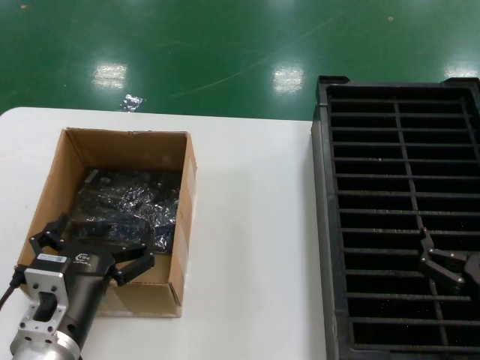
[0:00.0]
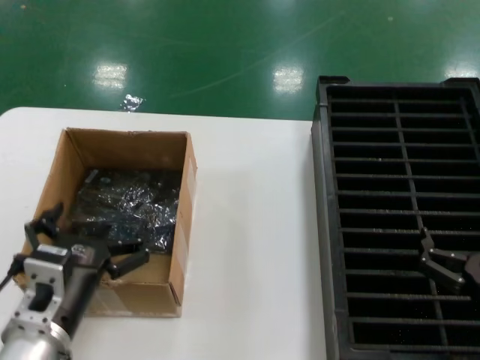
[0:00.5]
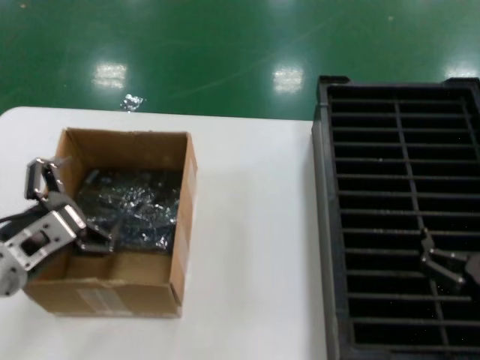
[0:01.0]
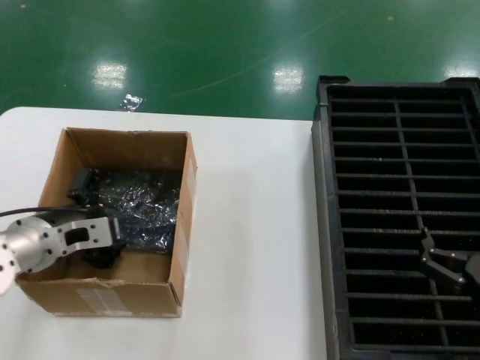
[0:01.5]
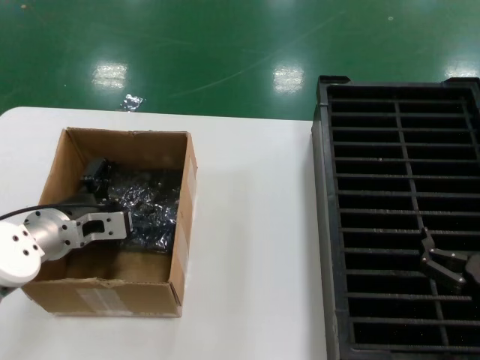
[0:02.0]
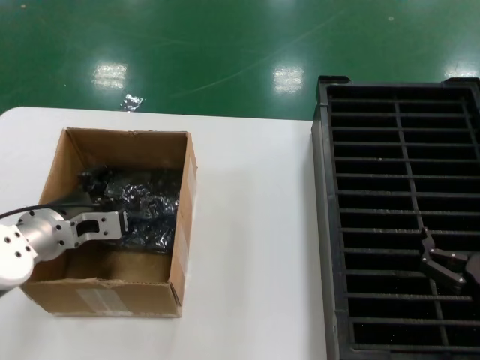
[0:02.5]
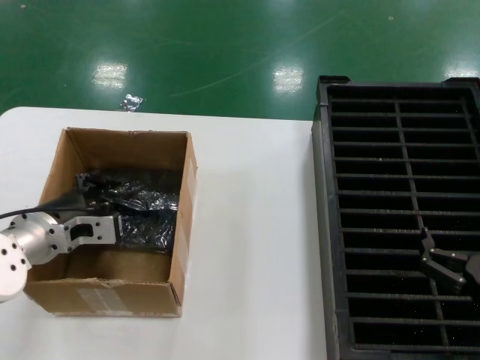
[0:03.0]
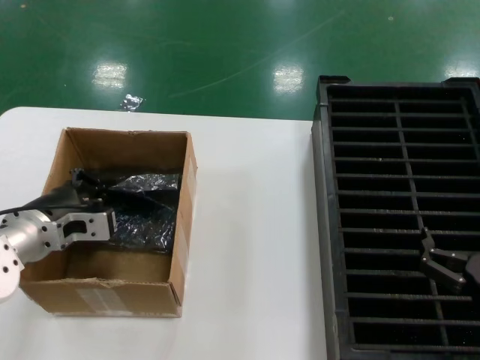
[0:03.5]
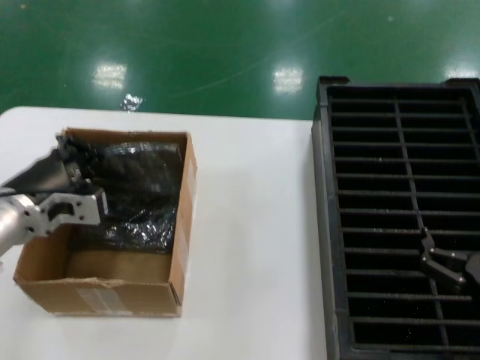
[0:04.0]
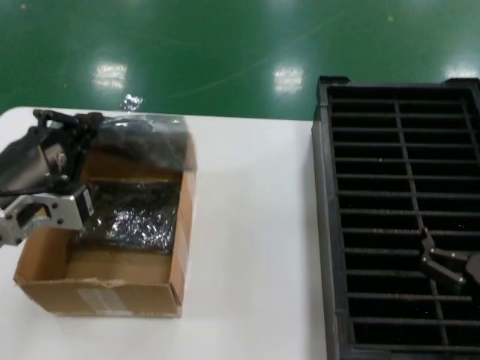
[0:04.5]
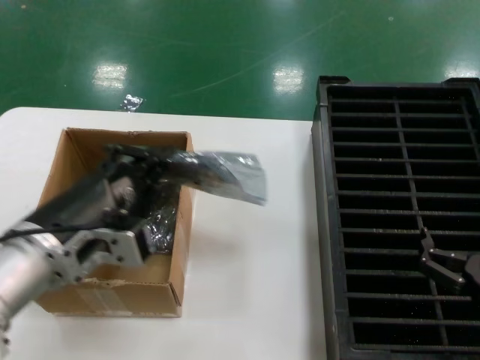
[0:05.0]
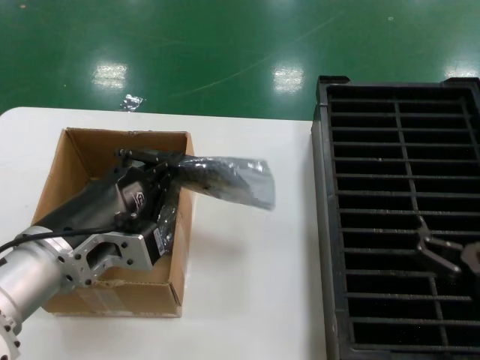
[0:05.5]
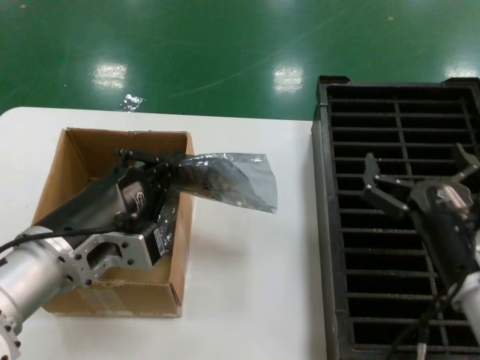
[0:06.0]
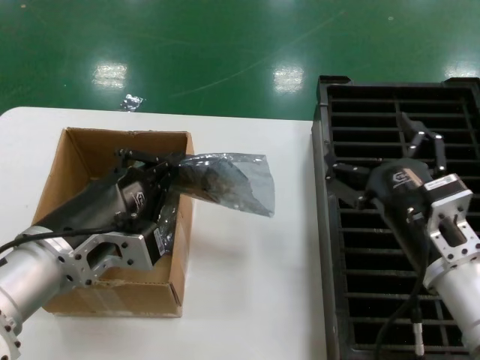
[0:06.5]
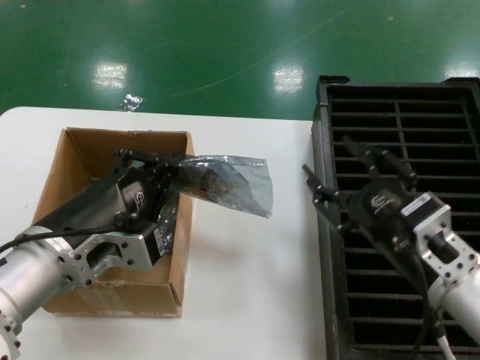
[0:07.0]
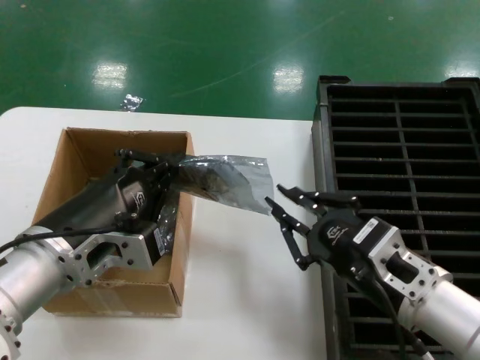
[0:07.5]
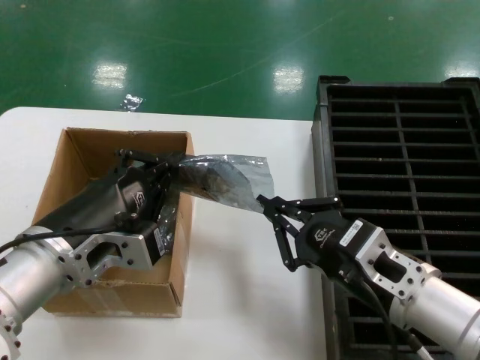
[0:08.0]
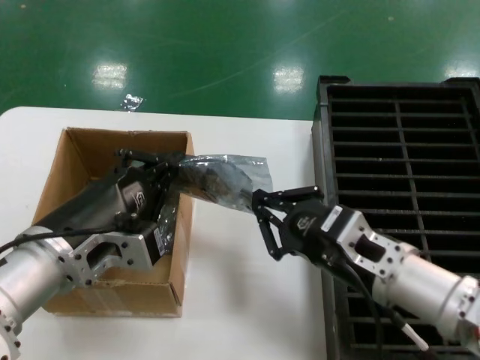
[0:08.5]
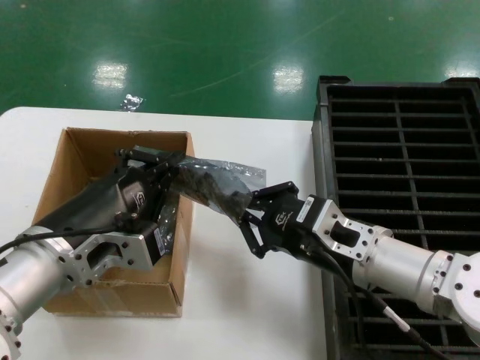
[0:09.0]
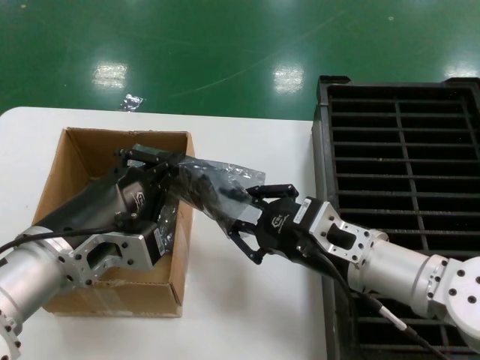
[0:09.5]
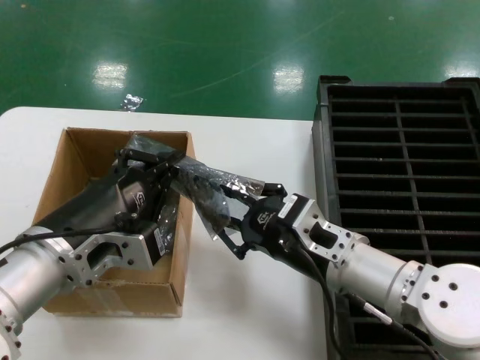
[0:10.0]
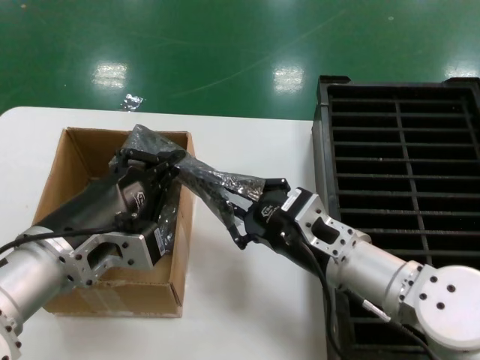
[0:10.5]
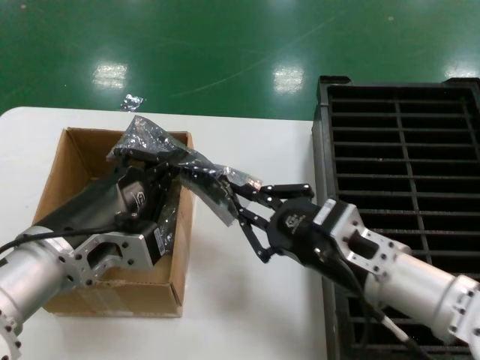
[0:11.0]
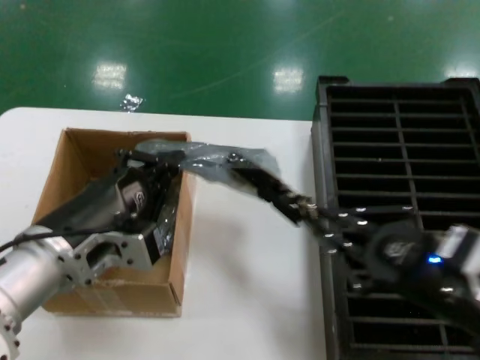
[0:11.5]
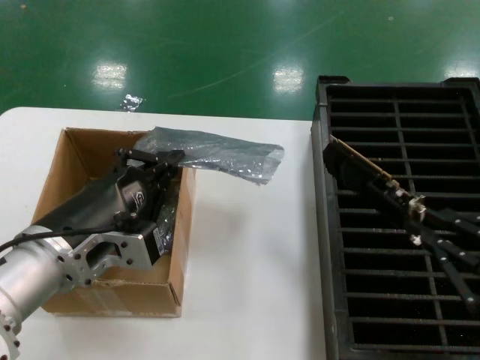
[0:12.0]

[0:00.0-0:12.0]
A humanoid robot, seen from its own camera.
Task of the whole recording: take out graphics card from box remove packaging put into black container.
Step, 0:00.0 to 0:03.5: Grasp the bag.
Step, 0:04.0 to 0:05.0: Lift the bag.
Step, 0:05.5 to 0:11.5: Take out the hard disk of the bag.
0:00.0 to 0:02.0: The left hand is displaced forward and to the left by roughly 20 cm.
0:02.0 to 0:04.0: The left hand moves backward and upward, some 10 cm.
0:04.0 to 0:06.0: The right hand goes about 5 cm to the left, while the left hand moves backward and to the right, approximately 15 cm.
0:06.0 to 0:08.0: The right hand moves about 5 cm.
0:08.0 to 0:10.0: The right hand is displaced forward and to the left by roughly 10 cm.
0:10.0 to 0:12.0: The right hand moves to the right, backward and upward, approximately 30 cm.

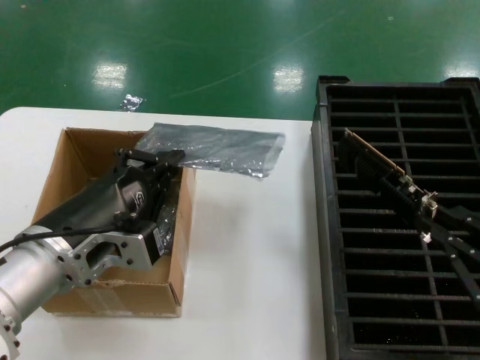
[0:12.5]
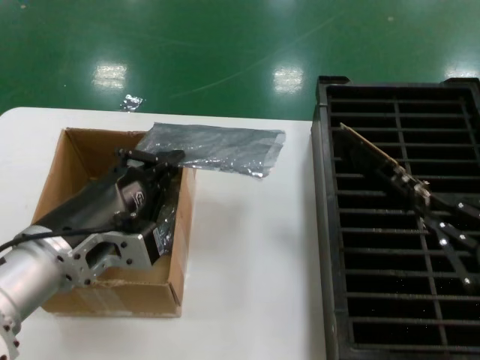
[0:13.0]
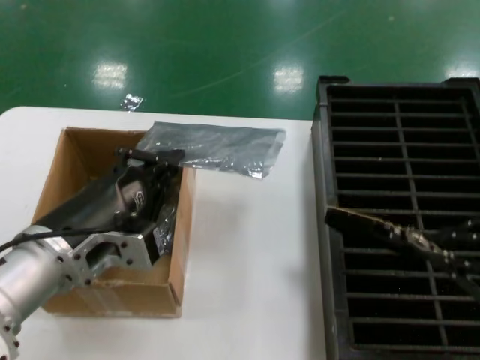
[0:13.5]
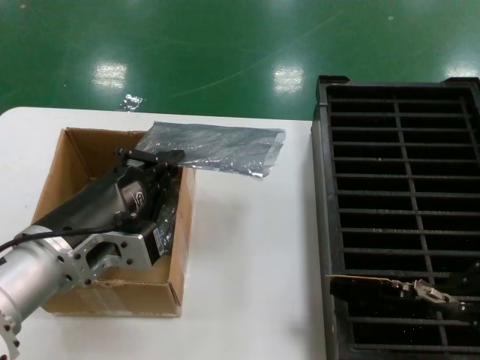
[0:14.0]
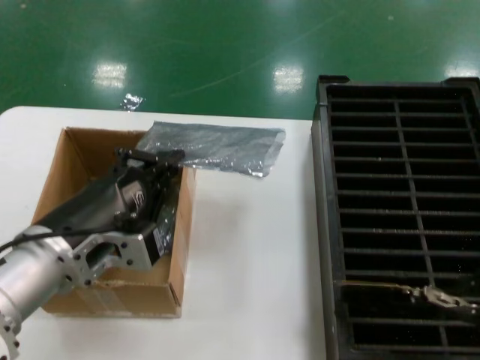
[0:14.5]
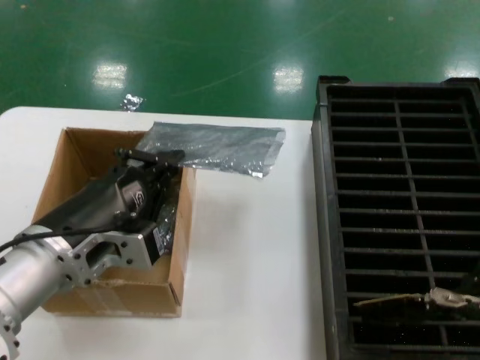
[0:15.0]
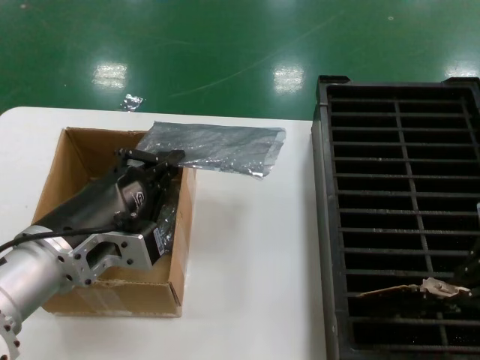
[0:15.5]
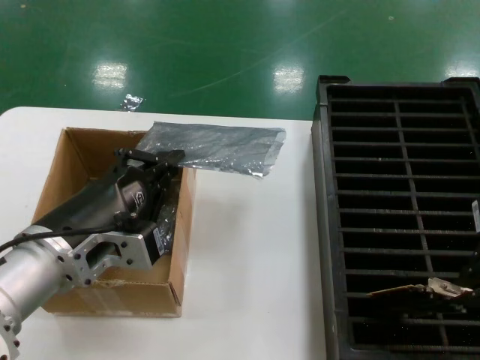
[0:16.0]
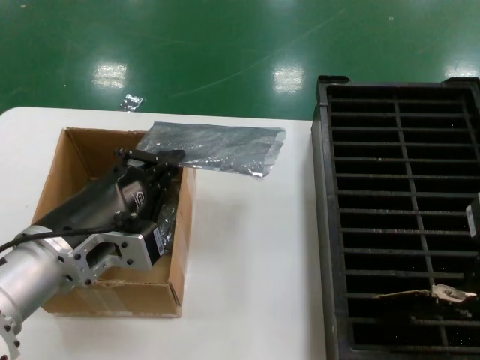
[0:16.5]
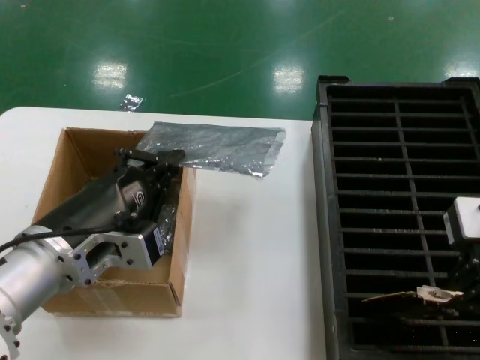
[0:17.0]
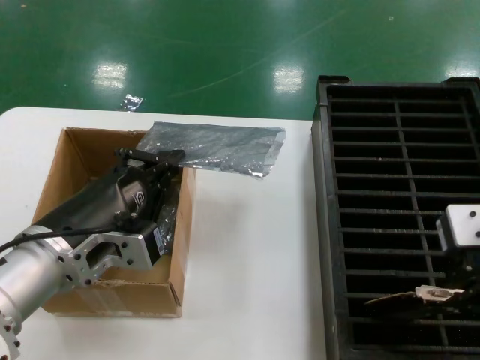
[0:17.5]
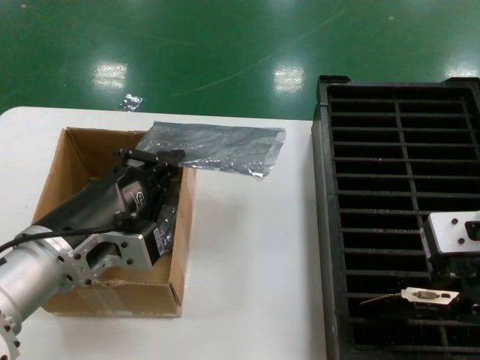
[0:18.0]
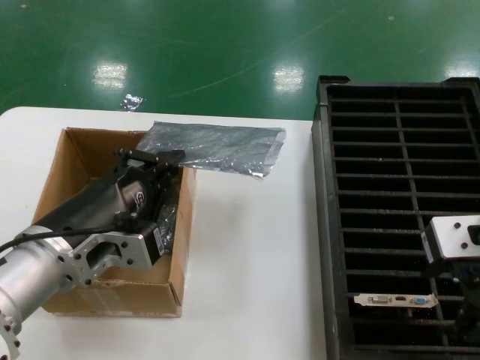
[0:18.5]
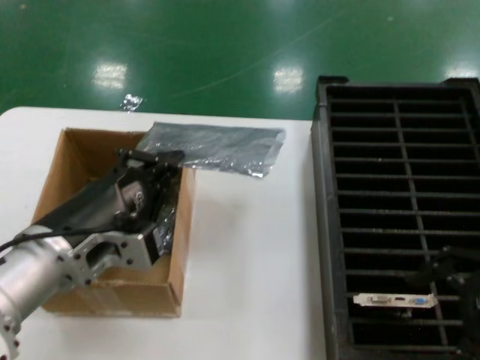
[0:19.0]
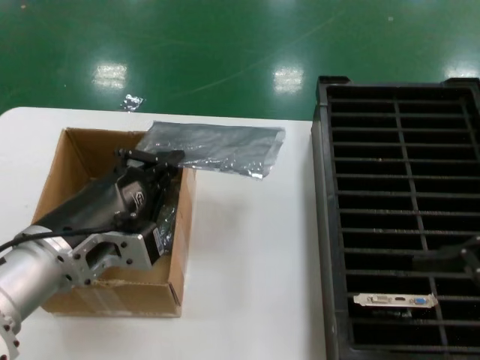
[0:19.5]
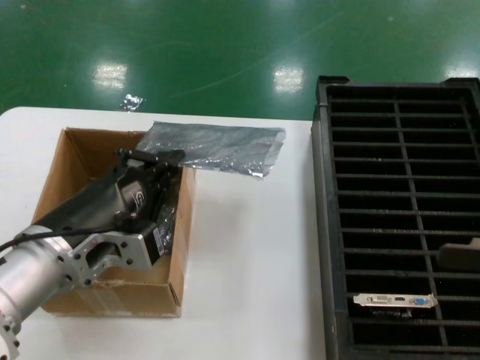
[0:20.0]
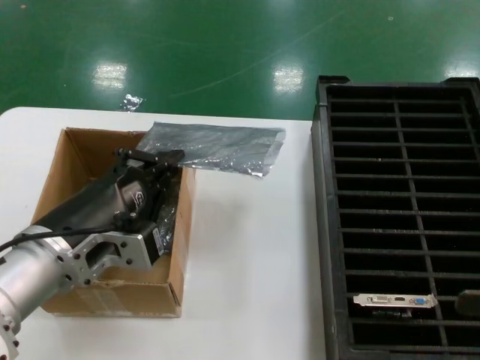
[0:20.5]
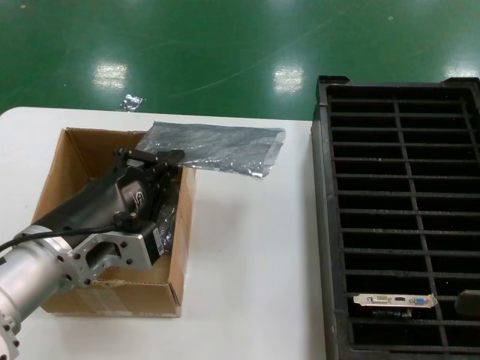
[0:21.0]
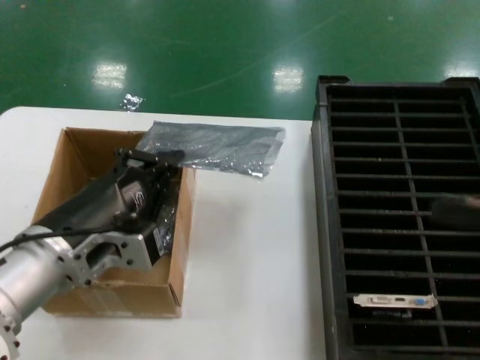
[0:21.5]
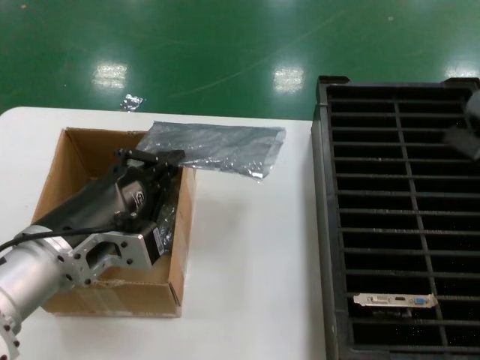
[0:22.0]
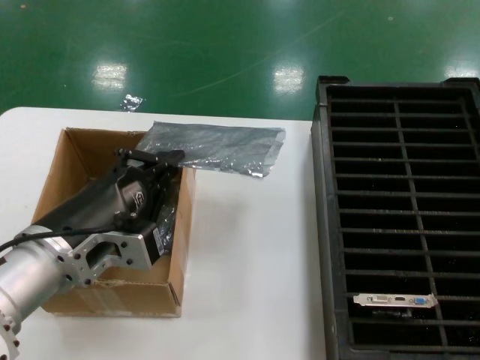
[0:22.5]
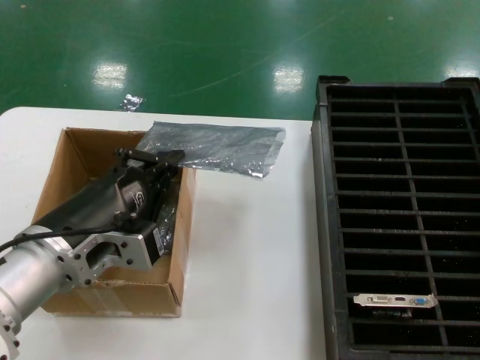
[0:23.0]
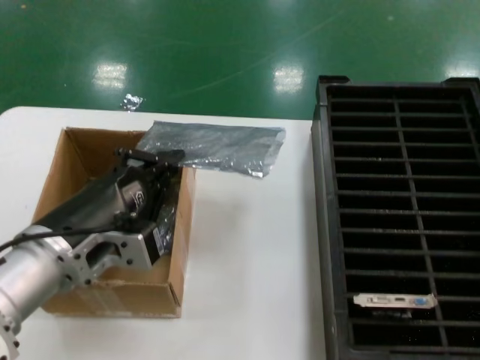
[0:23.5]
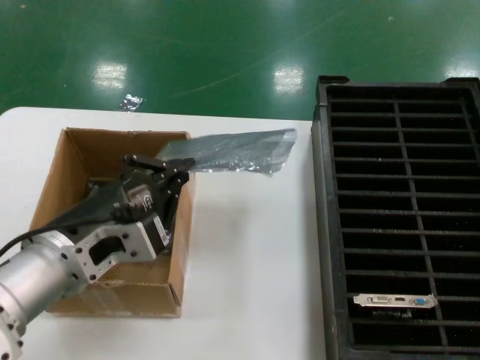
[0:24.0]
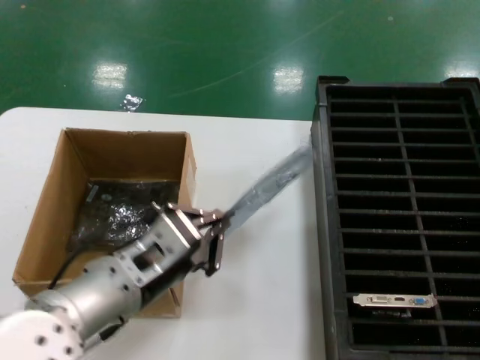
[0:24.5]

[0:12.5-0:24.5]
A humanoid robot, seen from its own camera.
Task of the whole recording: take out graphics card from box remove packaging put into black container.
Step, 0:12.5 to 0:18.5: Place the hard disk in the hard disk enclosure.
0:12.5 to 0:14.5: The right hand heads upward, covering approximately 15 cm.
0:14.5 to 0:16.5: The right hand is displaced forward by approximately 10 cm.
0:16.5 to 0:18.5: The hands stay close to where they were, moving slightly.
0:18.5 to 0:20.5: The right hand travels to the right, backward and downward by about 25 cm.
0:22.5 to 0:24.5: The left hand changes place by approximately 5 cm.

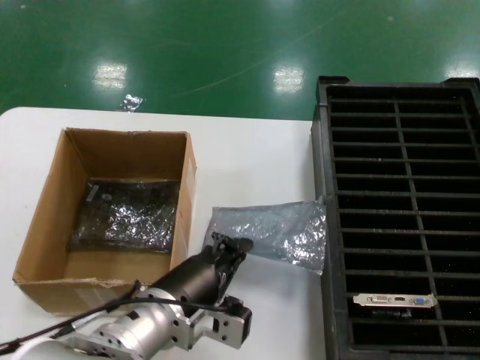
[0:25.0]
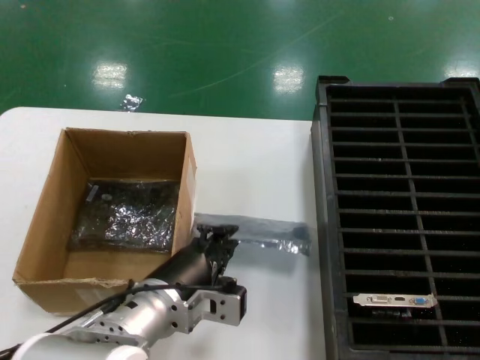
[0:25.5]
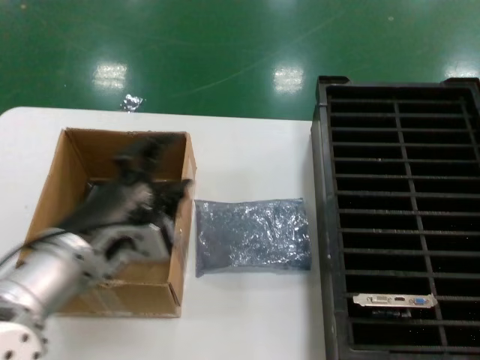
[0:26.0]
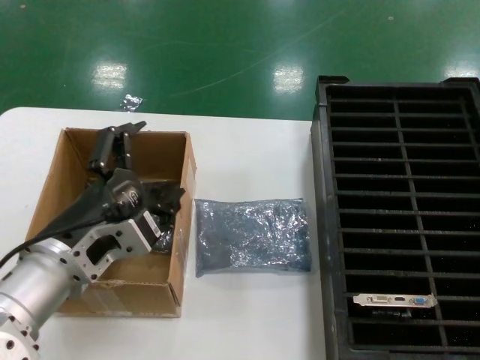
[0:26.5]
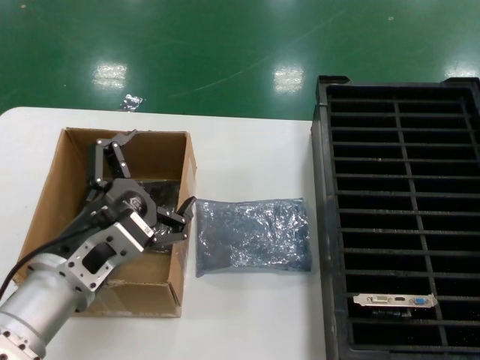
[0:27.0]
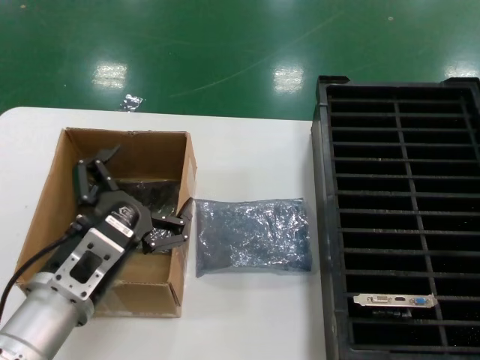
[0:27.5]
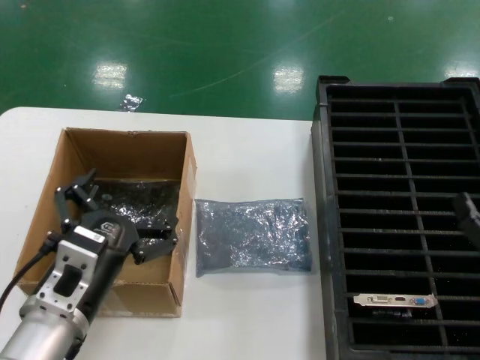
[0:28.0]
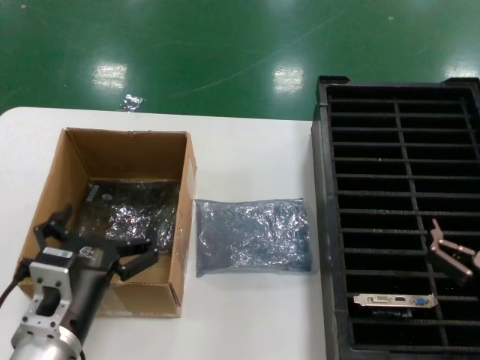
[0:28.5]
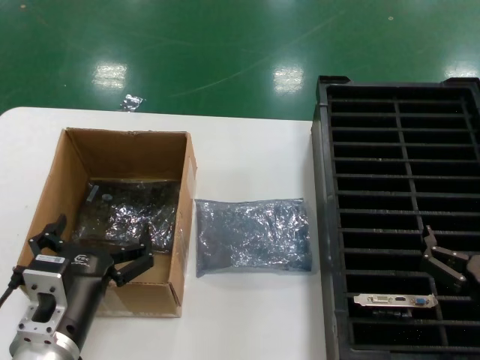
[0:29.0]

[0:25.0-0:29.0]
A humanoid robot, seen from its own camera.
Task of the whole recording: take out graphics card from box remove packaging put into black container.
0:25.0 to 0:27.0: The right hand ends up approximately 5 cm from where it was, while the left hand heads to the left and upward, covering approximately 10 cm.
0:27.0 to 0:29.0: The right hand is displaced to the left and downward by roughly 10 cm. Meanwhile the left hand is displaced downward by some 10 cm.
